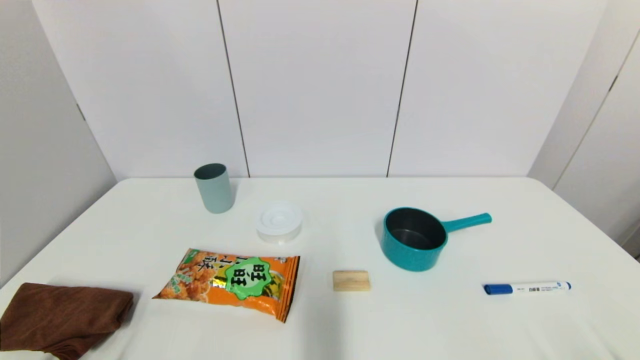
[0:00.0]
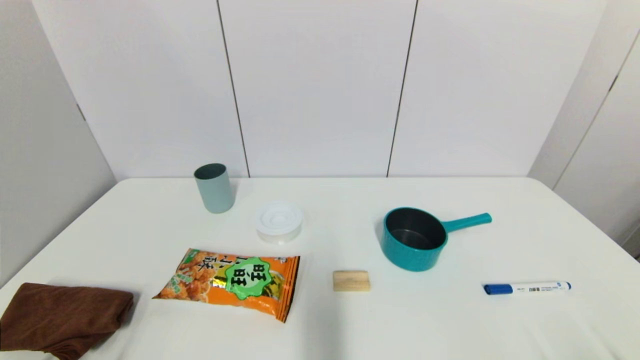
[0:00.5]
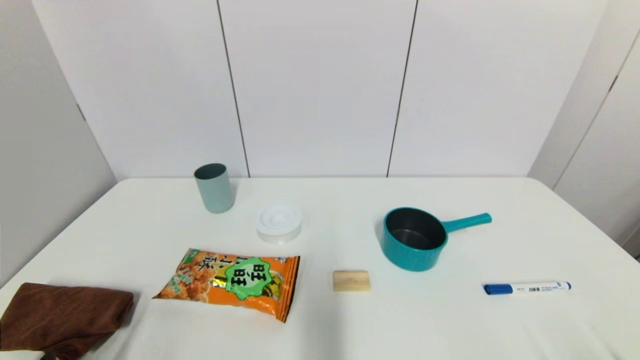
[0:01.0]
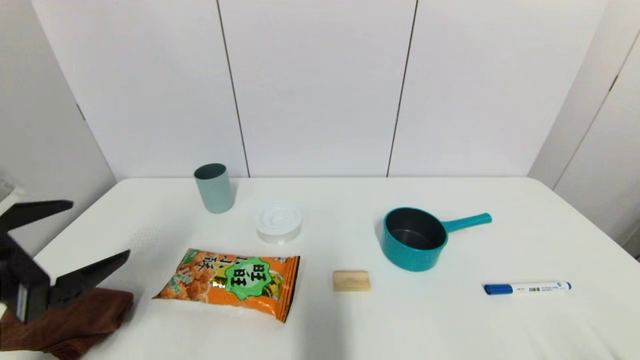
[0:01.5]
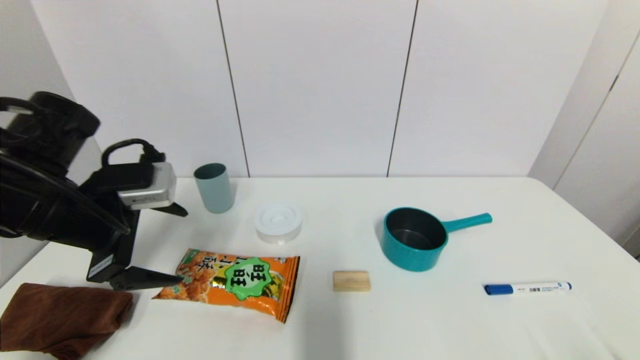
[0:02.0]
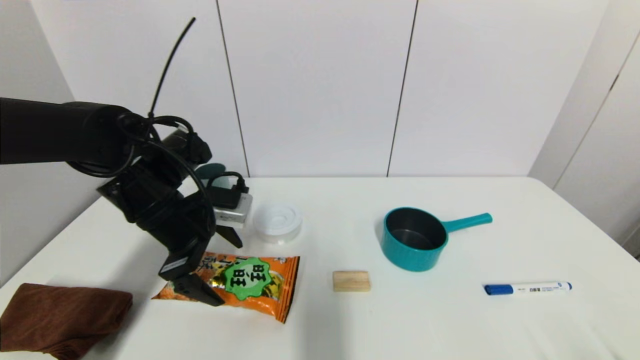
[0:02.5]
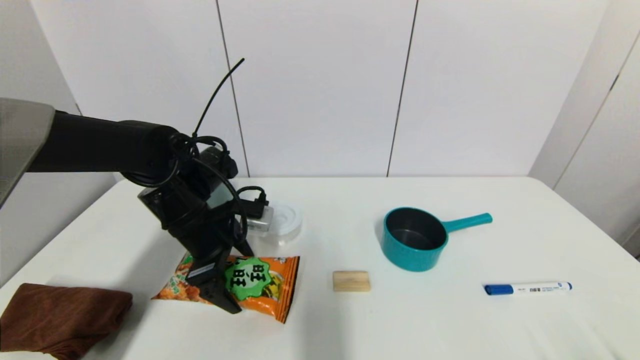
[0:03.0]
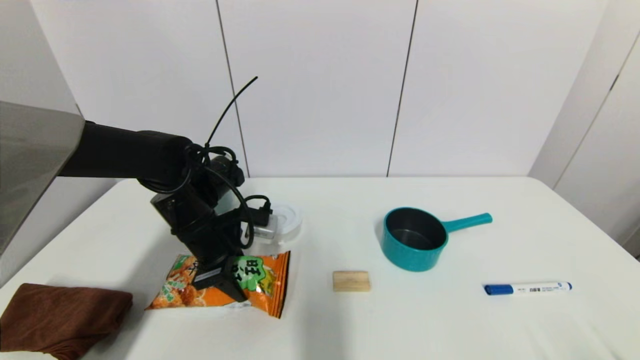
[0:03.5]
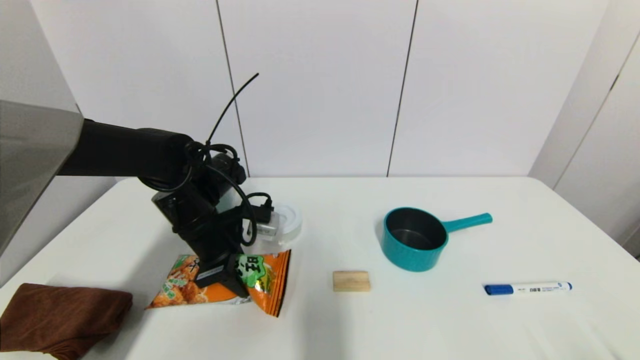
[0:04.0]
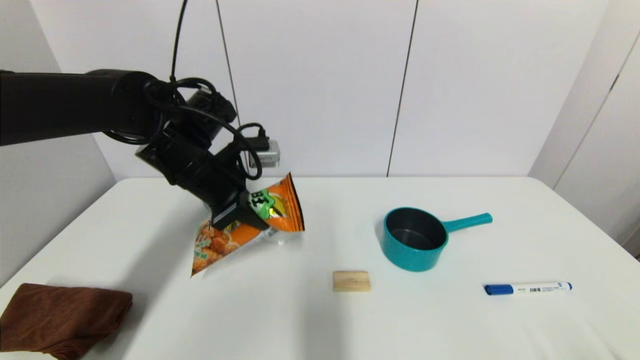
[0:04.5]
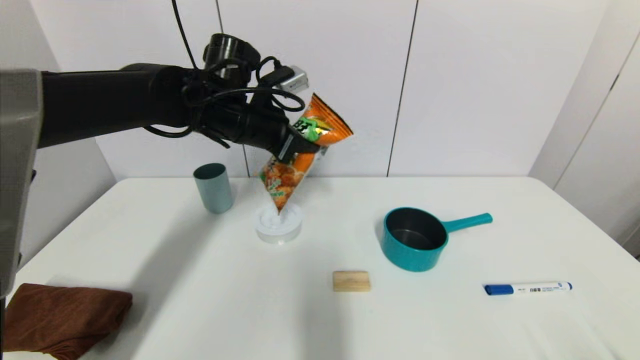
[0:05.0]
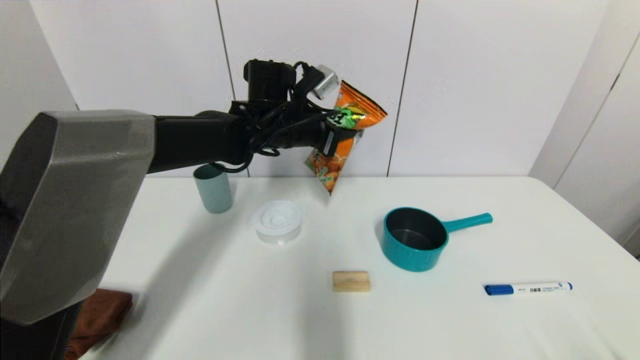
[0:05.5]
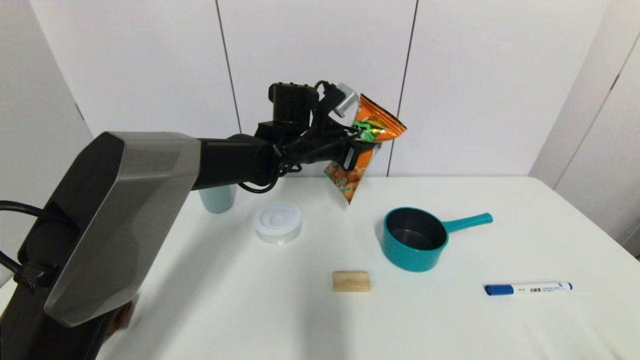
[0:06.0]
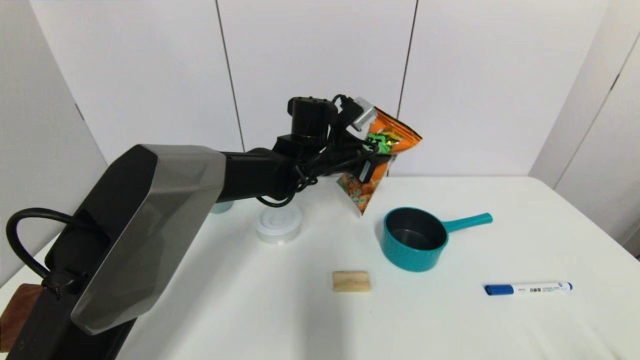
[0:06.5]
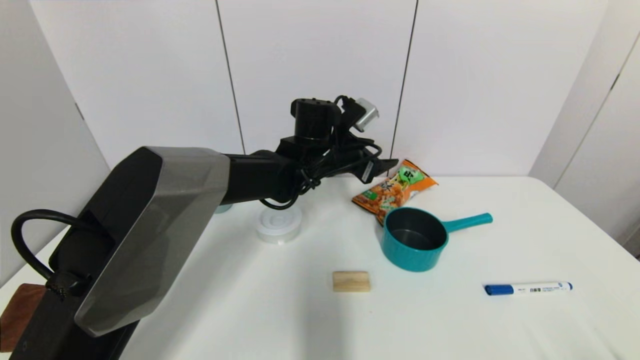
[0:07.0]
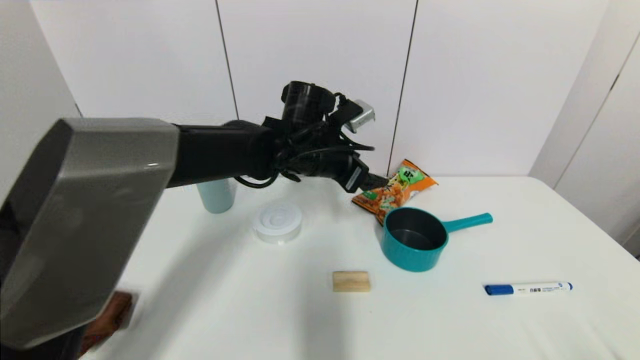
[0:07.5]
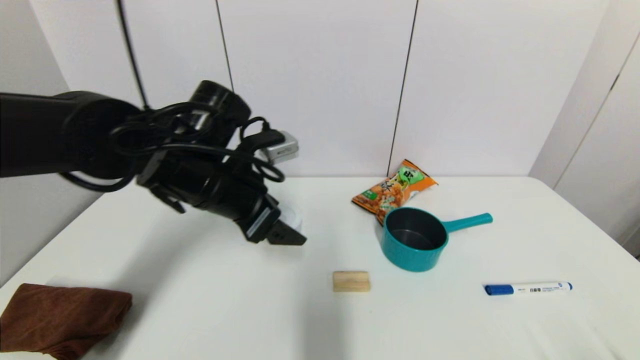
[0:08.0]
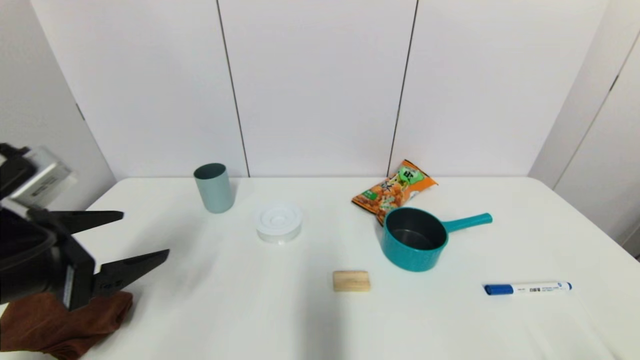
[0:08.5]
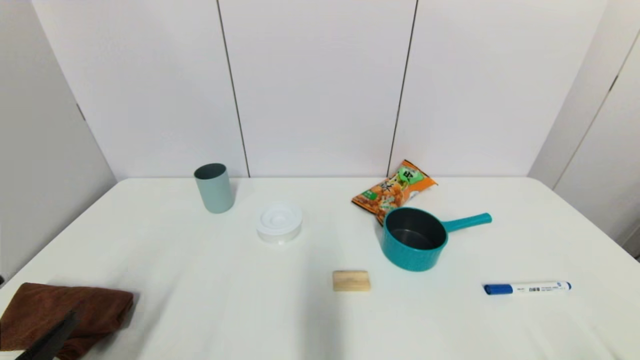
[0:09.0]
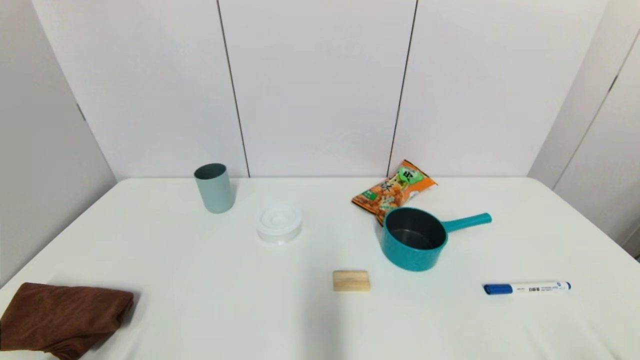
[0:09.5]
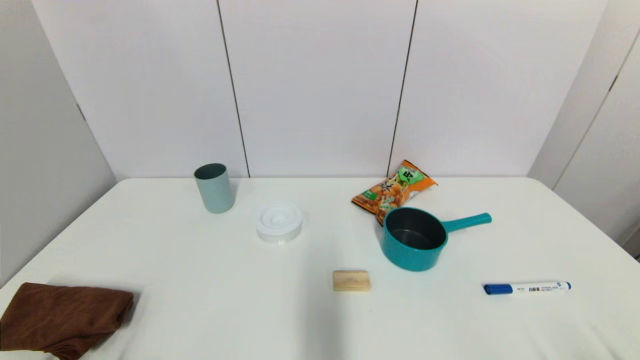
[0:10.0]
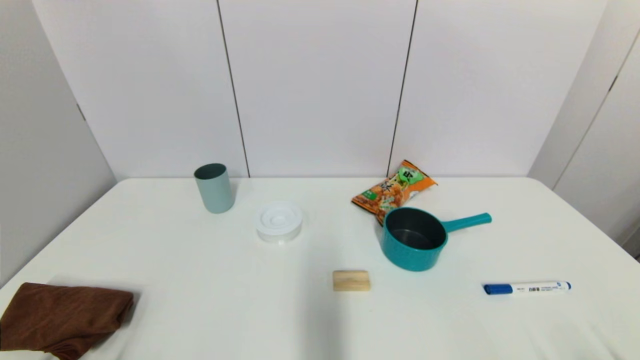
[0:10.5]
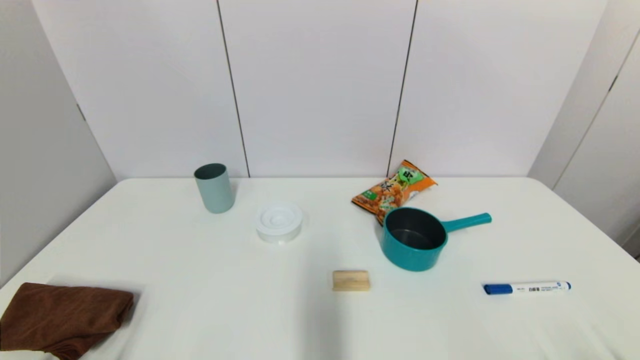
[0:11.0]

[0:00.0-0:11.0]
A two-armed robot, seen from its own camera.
Step, 0:01.0 to 0:03.5: Grasp the cookie with left gripper.
Step, 0:04.0 to 0:06.5: Place the cookie on the table with left gripper.
0:00.0 to 0:02.0: The left gripper travels forward and upward by approximately 30 cm.
0:02.0 to 0:03.5: The left gripper heads downward, forward and to the right, covering approximately 15 cm, and closes up.
0:03.5 to 0:05.5: The left gripper heads to the right, upward and forward, covering approximately 20 cm.
0:05.5 to 0:07.5: The left gripper moves roughly 5 cm, and opens its fingers.
0:07.5 to 0:09.0: The left gripper heads backward and to the left, covering about 40 cm.
0:09.0 to 0:11.0: The left gripper moves downward, approximately 10 cm.

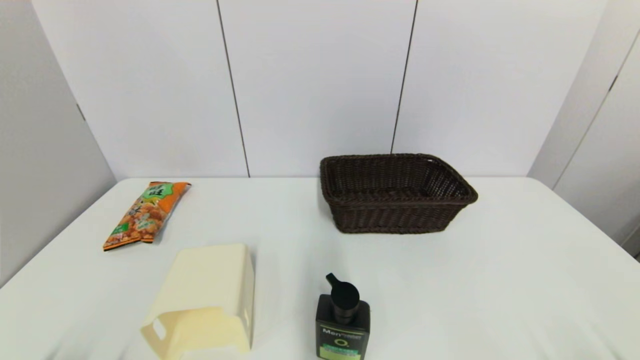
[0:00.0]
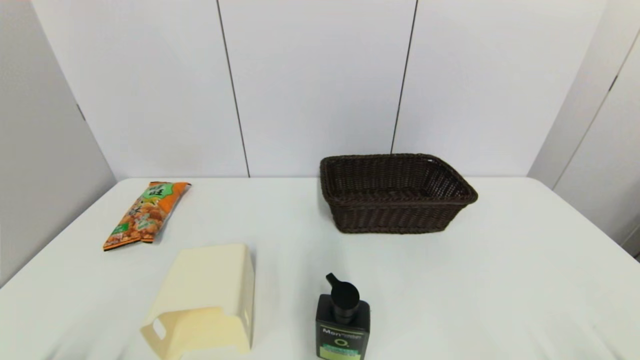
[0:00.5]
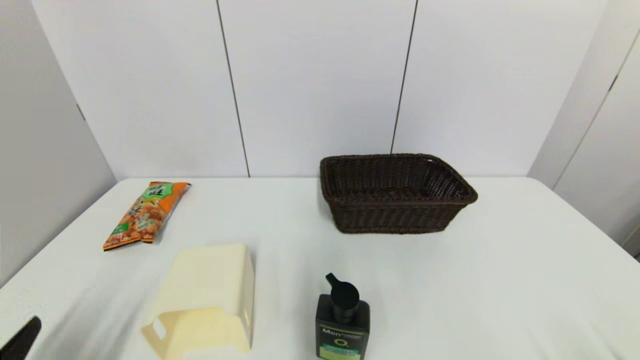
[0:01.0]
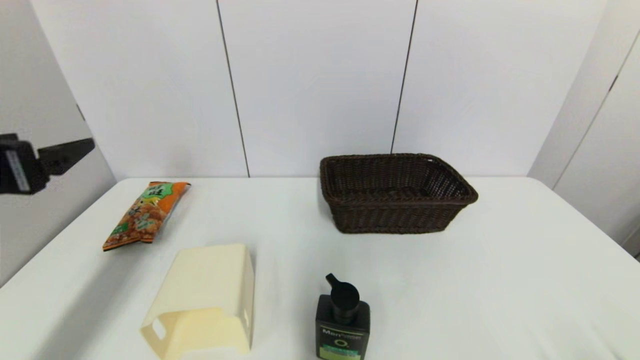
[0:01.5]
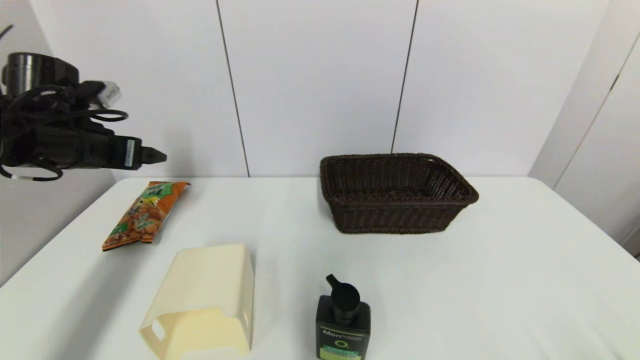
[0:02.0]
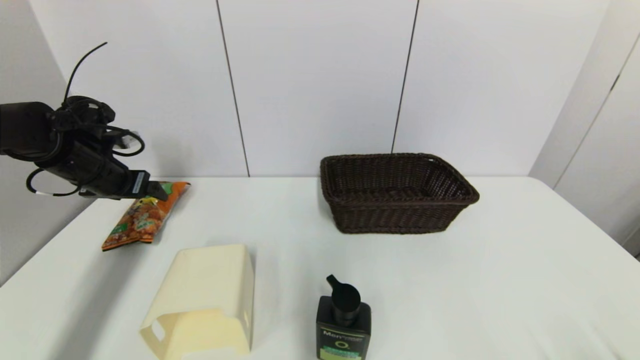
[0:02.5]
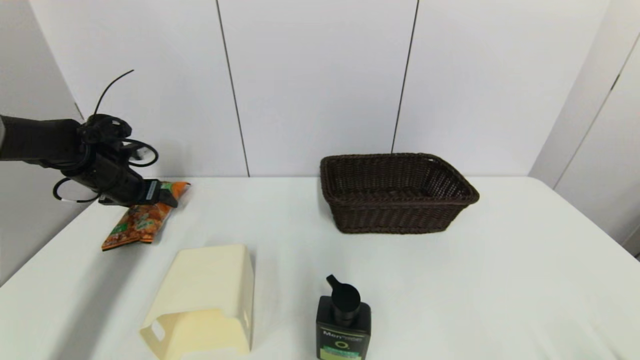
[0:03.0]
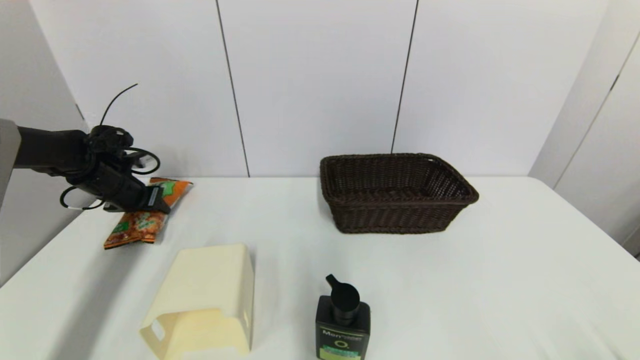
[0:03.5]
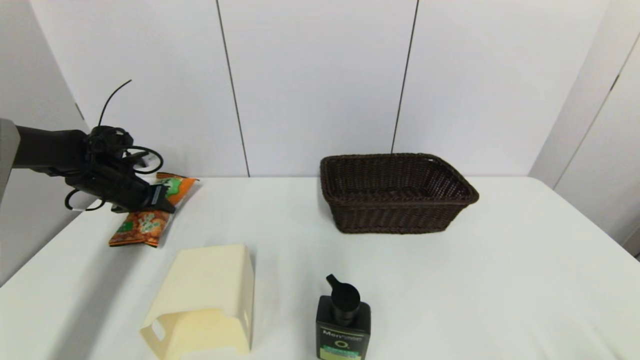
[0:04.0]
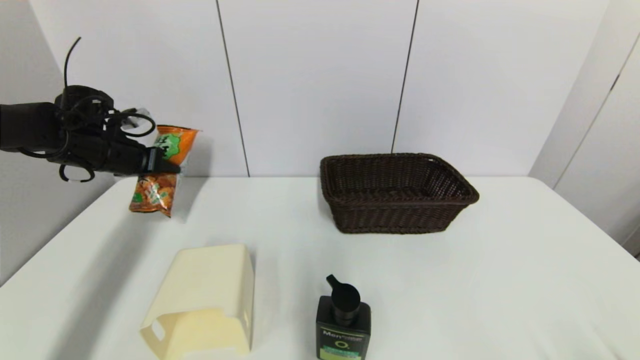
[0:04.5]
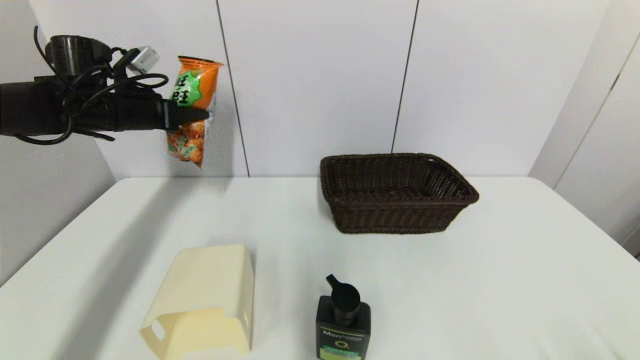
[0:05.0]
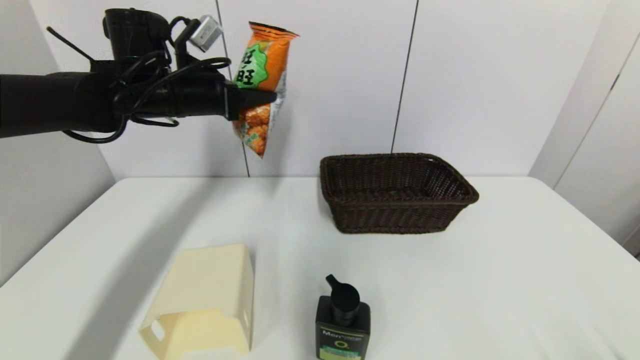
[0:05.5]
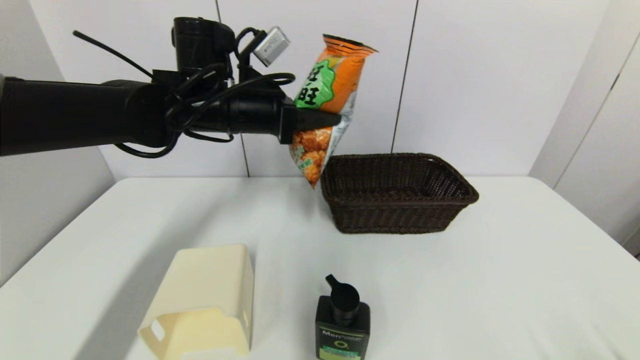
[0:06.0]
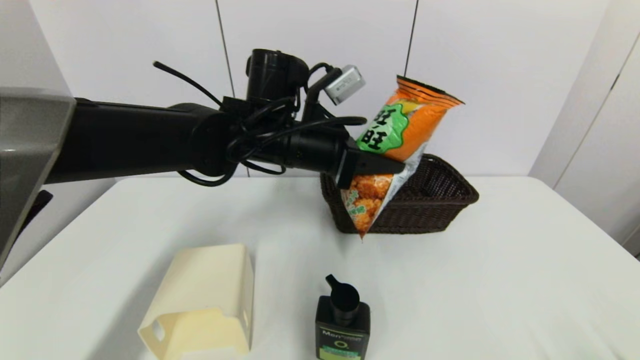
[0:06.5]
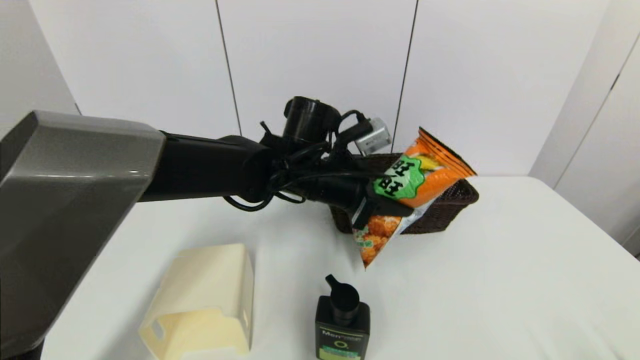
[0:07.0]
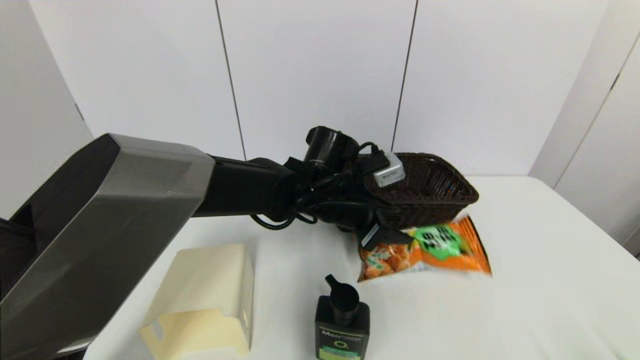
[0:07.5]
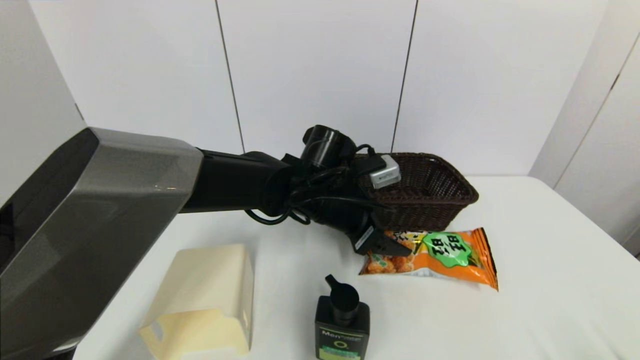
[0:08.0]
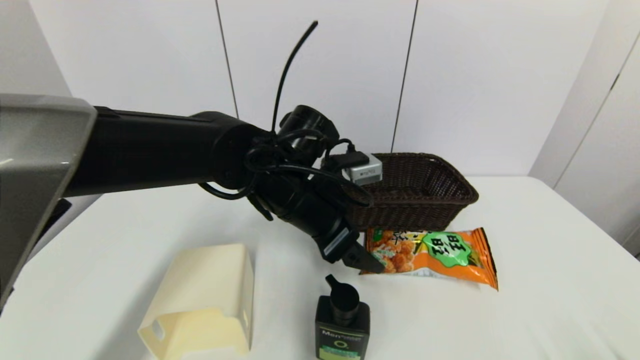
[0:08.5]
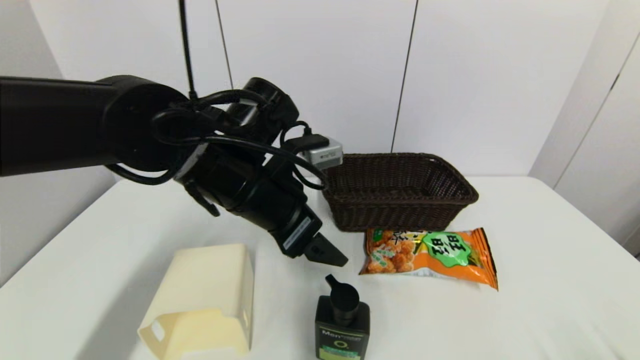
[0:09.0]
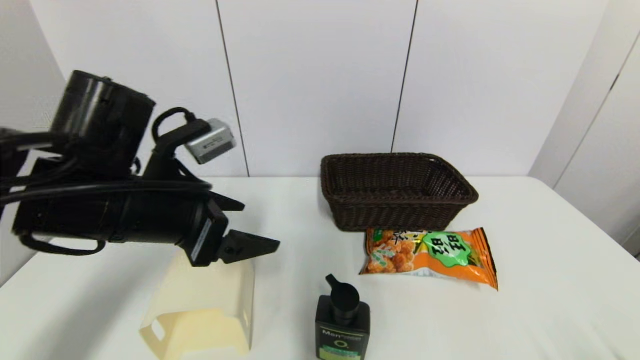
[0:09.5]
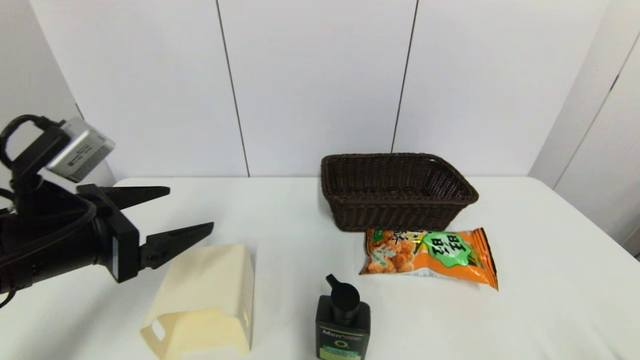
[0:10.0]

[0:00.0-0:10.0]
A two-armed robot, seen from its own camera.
Step, 0:01.0 to 0:03.5: Grasp the cookie with left gripper.
Step, 0:04.0 to 0:08.0: Place the cookie on the table with left gripper.
0:00.0 to 0:02.0: The left gripper moves forward and upward, roughly 40 cm.
0:02.0 to 0:04.0: The left gripper shifts roughly 15 cm downward and forward, and closes.
0:04.0 to 0:06.0: The left gripper is displaced to the right and upward by about 30 cm.
0:06.0 to 0:08.0: The left gripper heads downward and to the right, covering about 15 cm, and opens its fingers.
0:08.0 to 0:10.0: The left gripper moves to the left and backward, some 30 cm.
